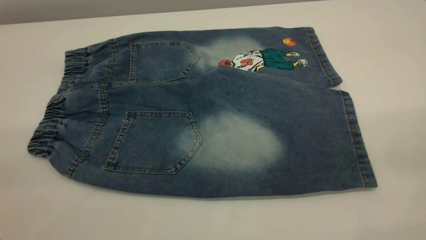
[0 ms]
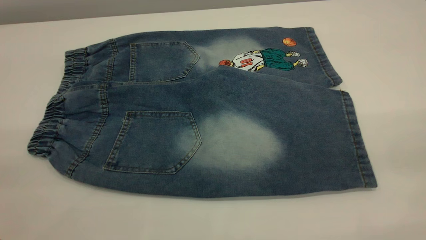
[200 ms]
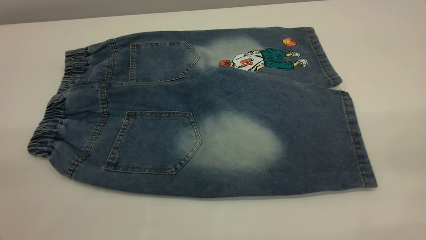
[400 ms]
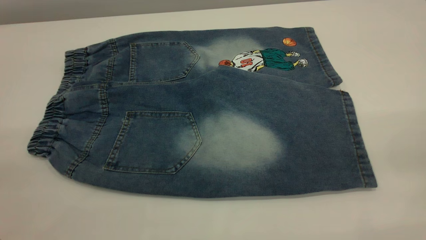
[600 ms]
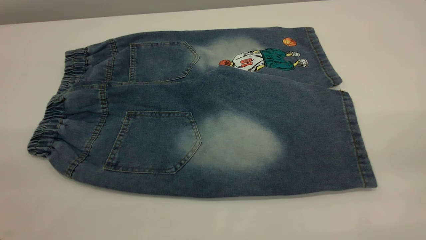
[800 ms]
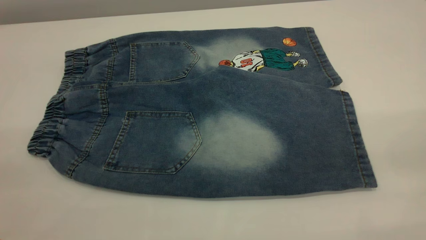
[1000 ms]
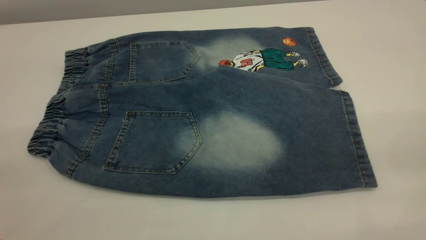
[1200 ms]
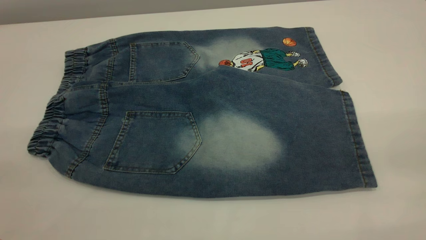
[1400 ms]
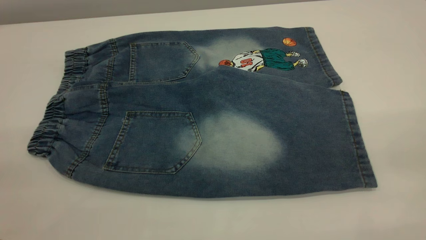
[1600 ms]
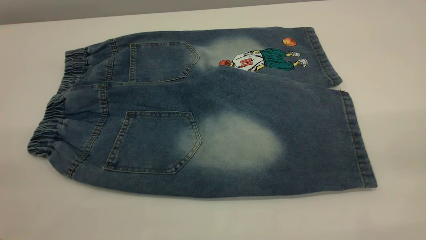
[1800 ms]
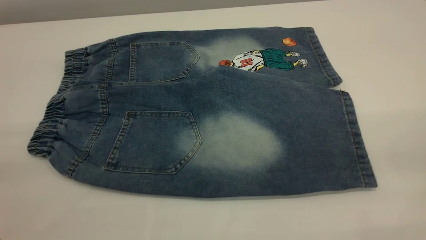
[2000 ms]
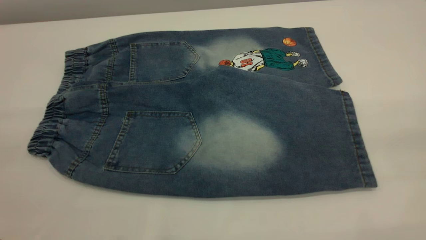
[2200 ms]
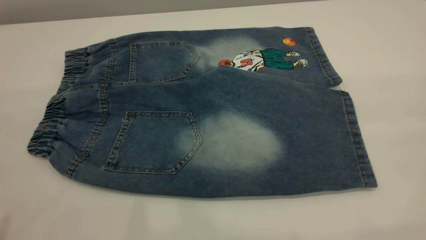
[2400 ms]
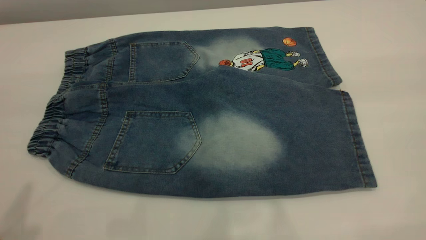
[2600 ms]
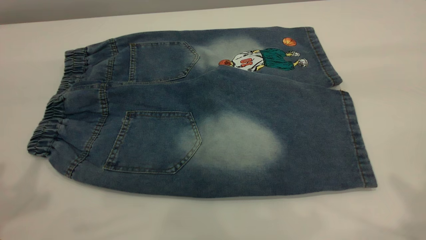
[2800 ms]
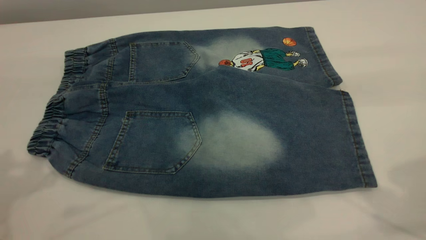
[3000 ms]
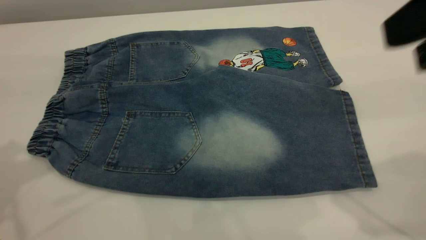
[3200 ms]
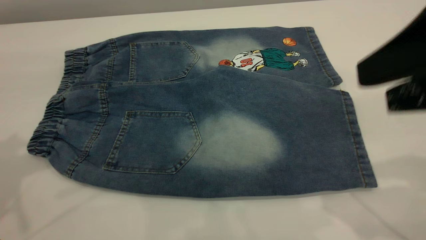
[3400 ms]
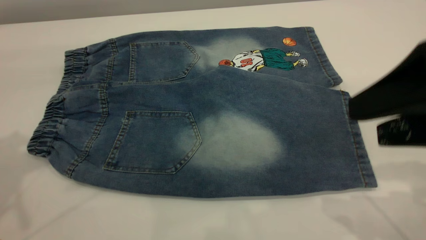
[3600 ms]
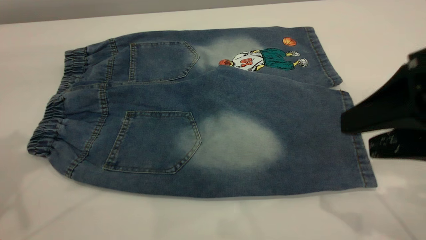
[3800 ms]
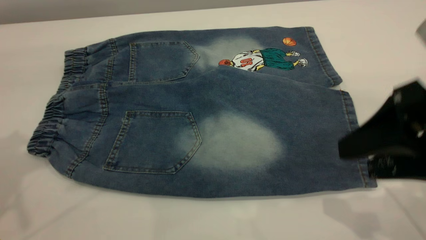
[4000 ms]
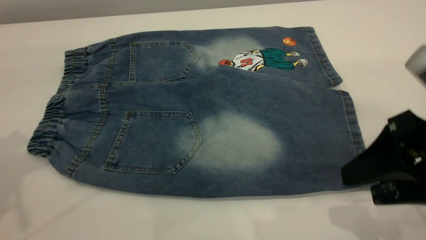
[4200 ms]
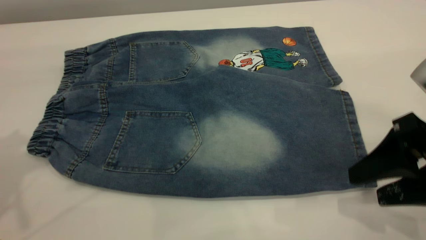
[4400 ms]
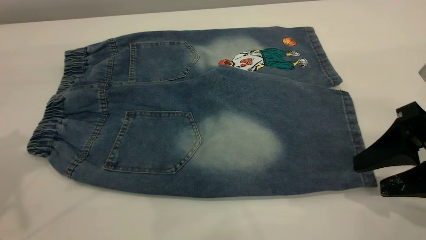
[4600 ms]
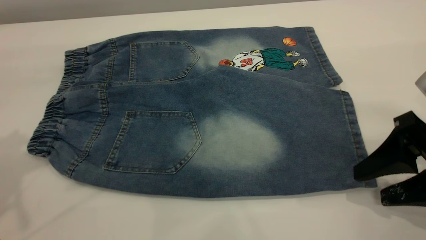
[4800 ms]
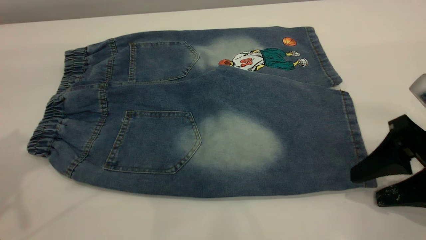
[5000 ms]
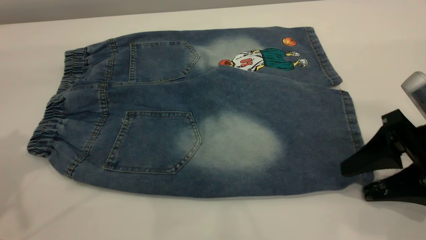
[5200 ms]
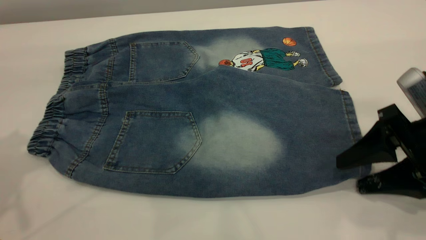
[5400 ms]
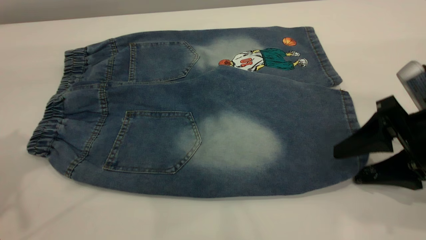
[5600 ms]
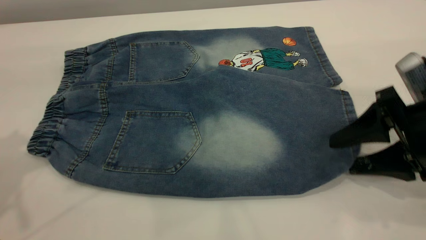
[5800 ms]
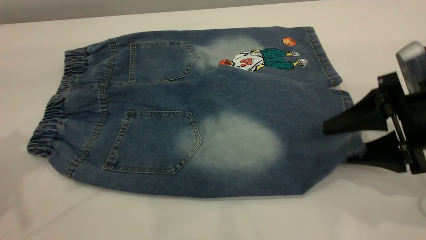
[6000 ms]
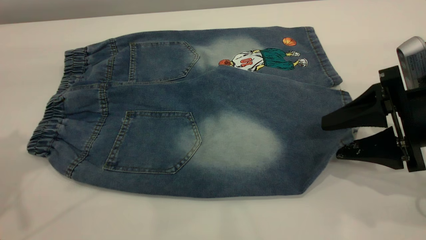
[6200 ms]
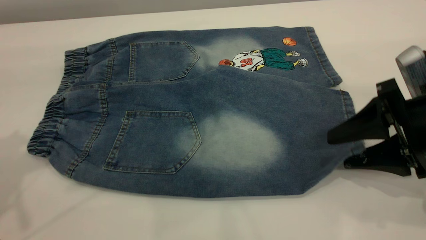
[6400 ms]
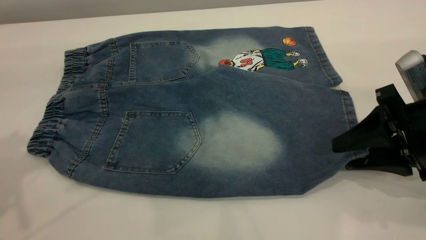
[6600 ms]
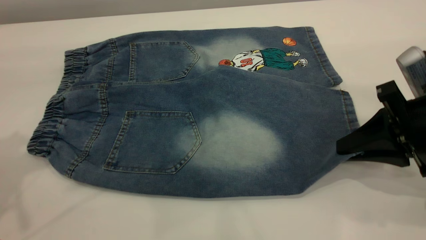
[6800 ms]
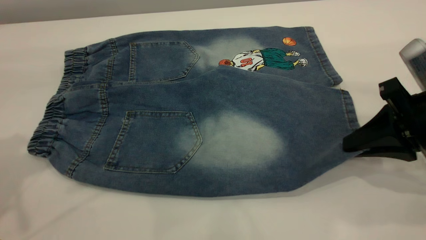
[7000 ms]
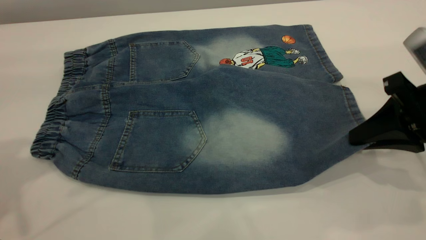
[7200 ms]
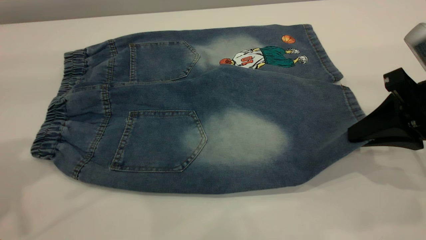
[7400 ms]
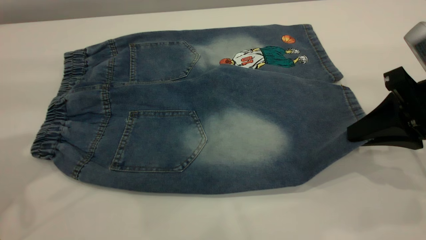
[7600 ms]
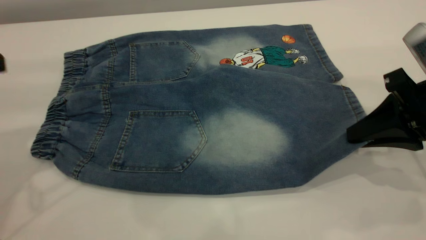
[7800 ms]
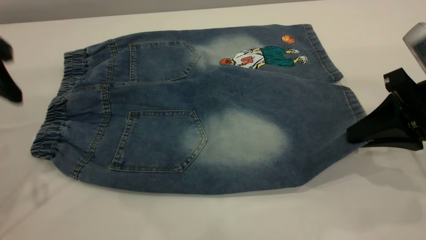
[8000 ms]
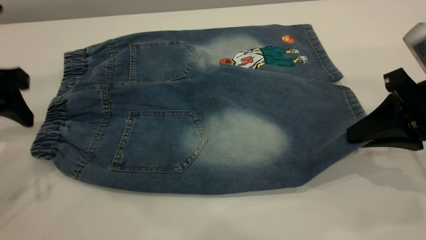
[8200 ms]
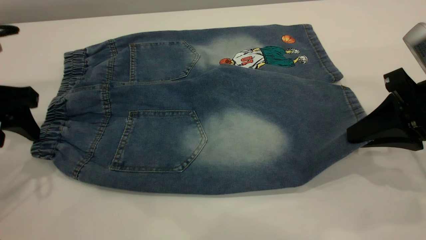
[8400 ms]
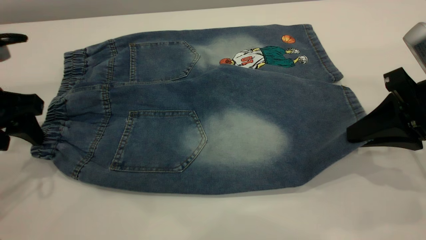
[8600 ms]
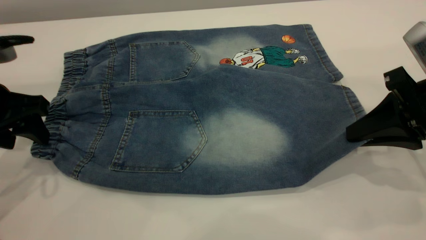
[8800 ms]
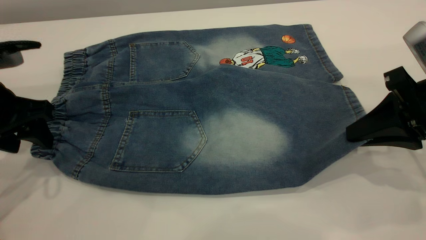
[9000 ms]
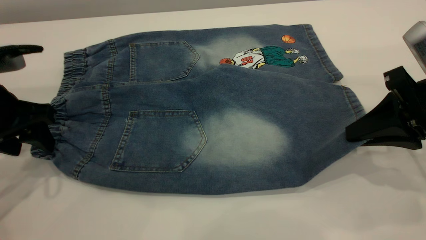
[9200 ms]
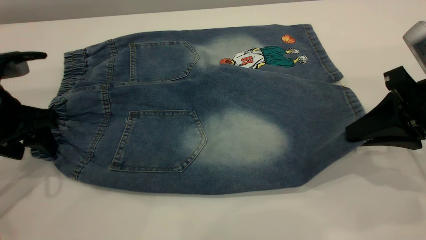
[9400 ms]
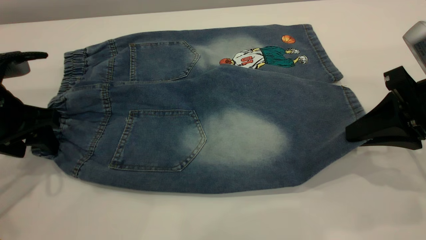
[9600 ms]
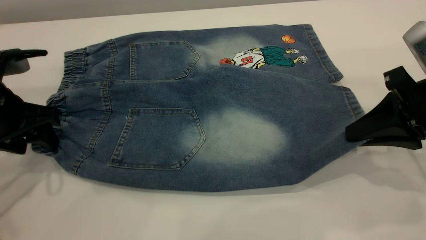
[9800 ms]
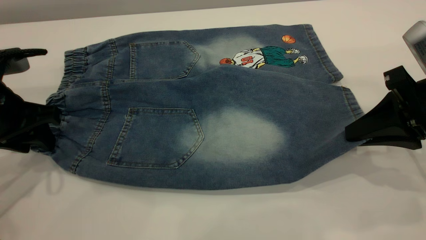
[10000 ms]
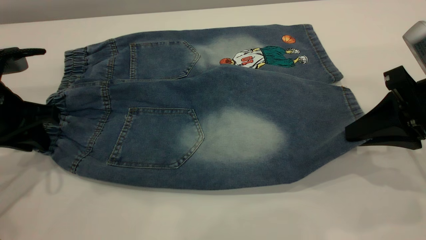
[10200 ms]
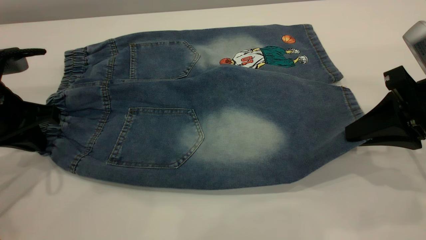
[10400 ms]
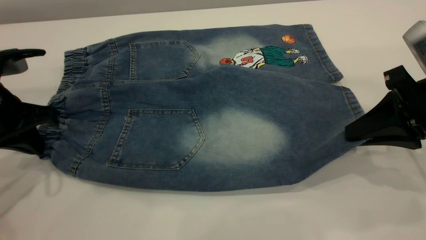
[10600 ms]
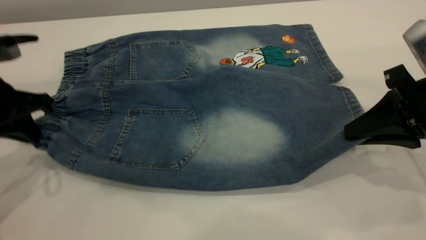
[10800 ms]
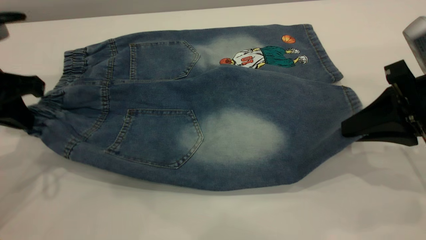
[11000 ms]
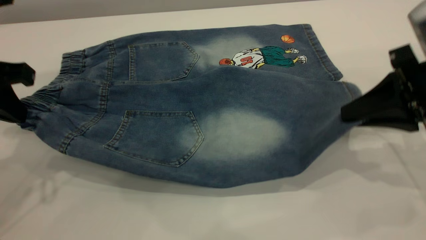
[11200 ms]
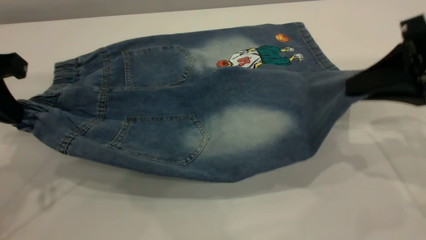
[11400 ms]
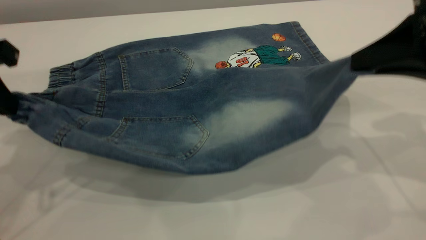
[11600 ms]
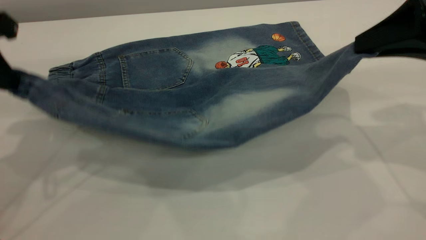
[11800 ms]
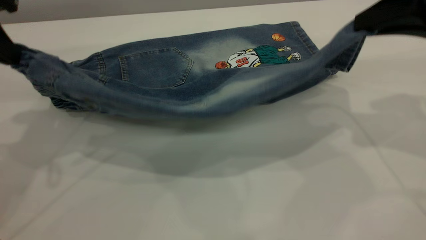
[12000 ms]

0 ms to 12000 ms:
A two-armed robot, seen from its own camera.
0 ms to 1600 ms: Neither gripper changes place.
3000 ms to 4400 ms: The right gripper travels downward by about 20 cm.
4400 ms to 6000 ms: The right gripper shifts by roughly 5 cm.
6000 ms to 7600 ms: The right gripper closes its fingers.
7600 ms to 9000 ms: The left gripper moves downward, approximately 15 cm.
9000 ms to 10400 ms: The left gripper closes.
10400 ms to 12000 ms: The left gripper is displaced upward by approximately 15 cm; the right gripper goes about 10 cm upward and forward.

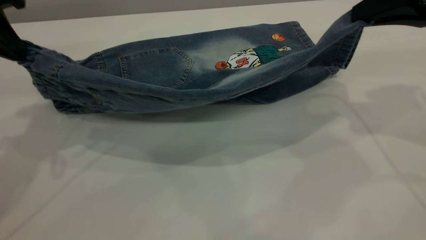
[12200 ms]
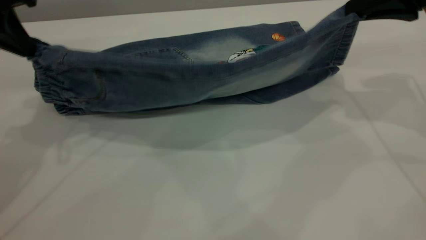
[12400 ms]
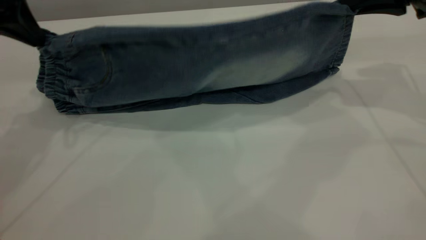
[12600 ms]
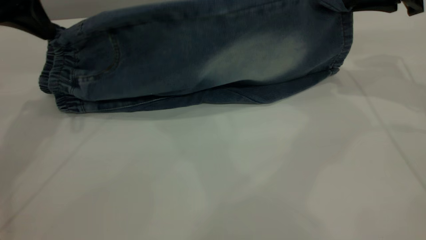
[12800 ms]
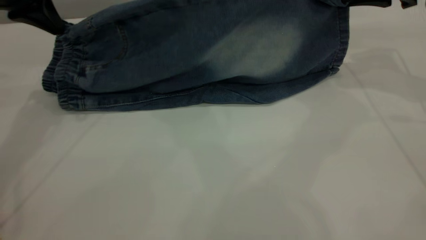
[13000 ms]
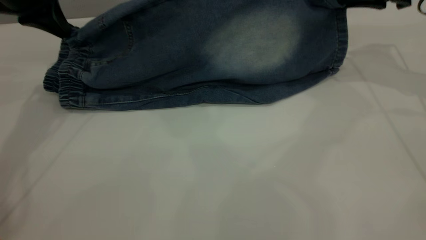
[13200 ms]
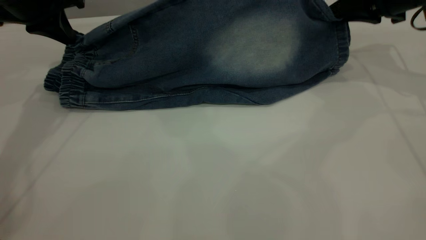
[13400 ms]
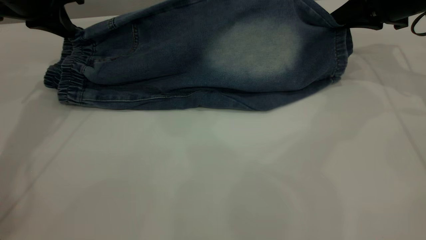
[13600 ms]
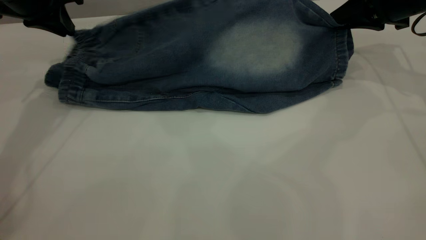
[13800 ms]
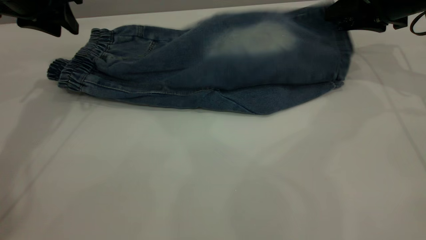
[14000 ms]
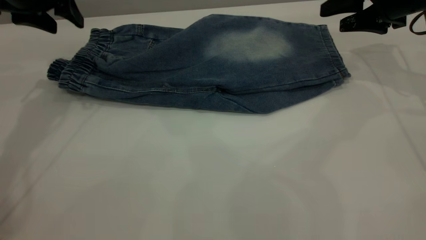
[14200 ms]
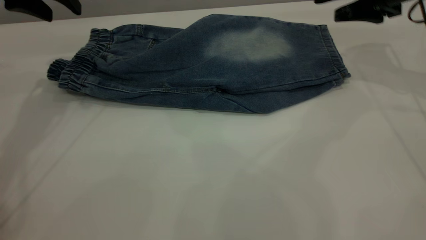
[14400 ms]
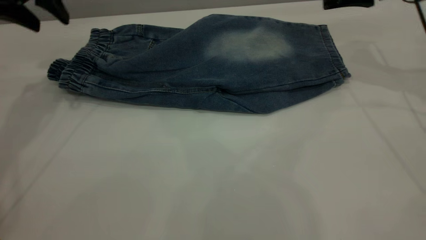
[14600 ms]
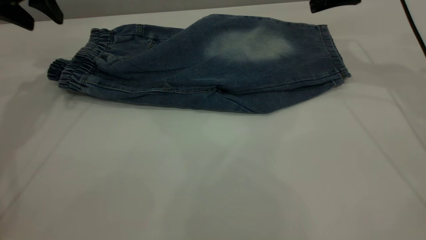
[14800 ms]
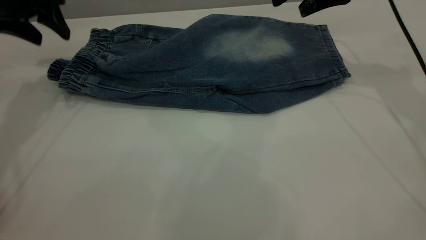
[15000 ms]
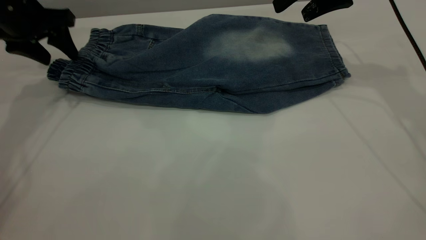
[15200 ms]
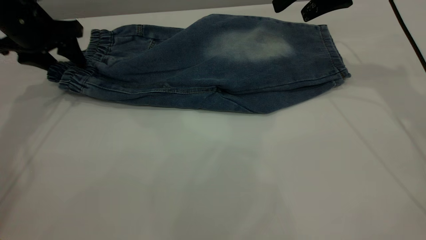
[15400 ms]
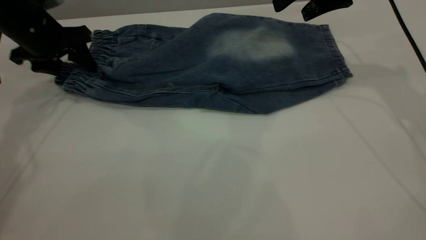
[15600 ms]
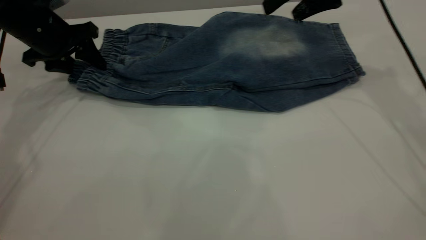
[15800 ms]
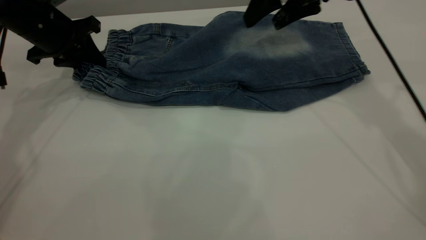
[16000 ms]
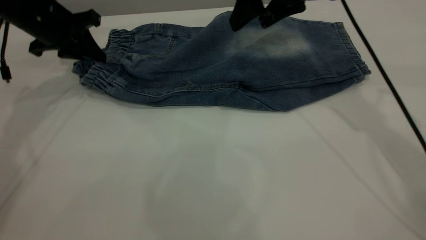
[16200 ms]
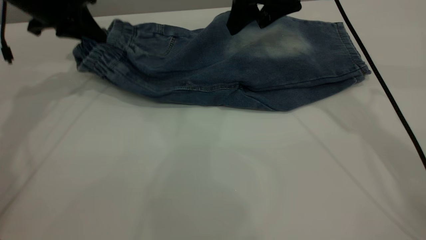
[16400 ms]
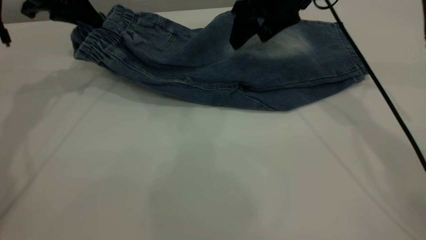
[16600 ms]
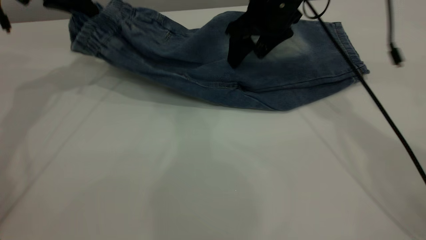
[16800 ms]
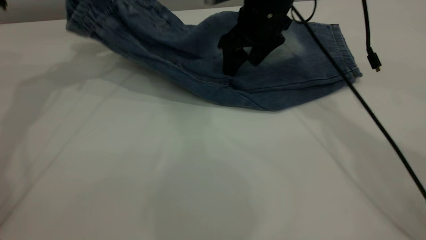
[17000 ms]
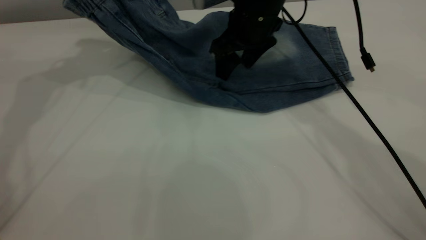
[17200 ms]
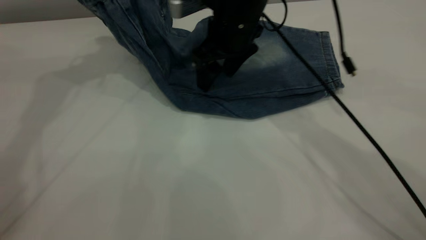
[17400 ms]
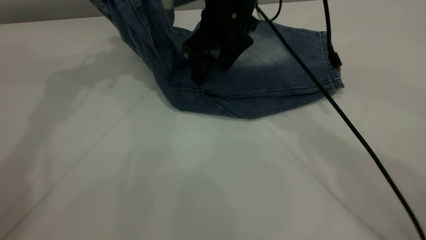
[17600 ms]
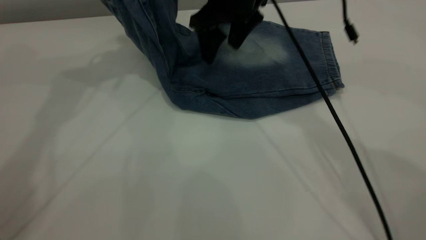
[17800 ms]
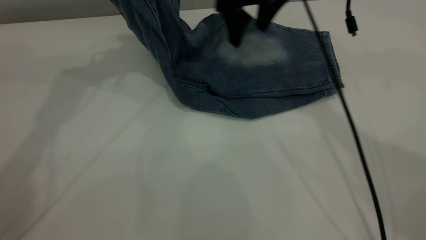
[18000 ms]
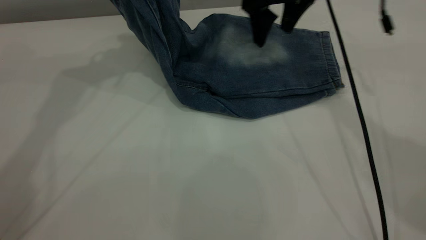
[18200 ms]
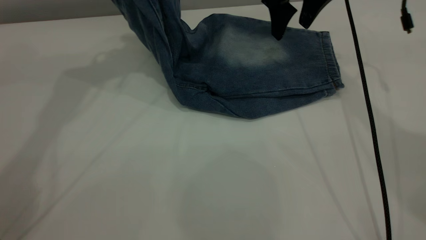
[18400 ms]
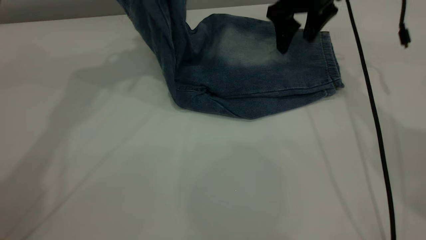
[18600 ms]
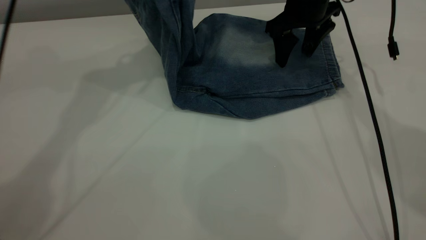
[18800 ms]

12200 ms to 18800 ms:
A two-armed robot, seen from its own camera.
Step, 12200 ms to 14400 ms: Fold the bottom of the pants upward.
12200 ms to 13800 ms: The grippers both shift forward and downward by approximately 15 cm.
13800 ms to 15400 ms: The left gripper shifts approximately 5 cm downward, and opens up. The right gripper moves to the left and upward, some 10 cm, and opens up.
15400 ms to 17200 ms: The right gripper goes about 15 cm to the left and downward. Meanwhile the left gripper moves upward, approximately 15 cm, and closes its fingers.
17200 ms to 18800 ms: The left gripper heads to the right, covering some 10 cm. Meanwhile the right gripper moves to the right and forward, roughly 10 cm.
